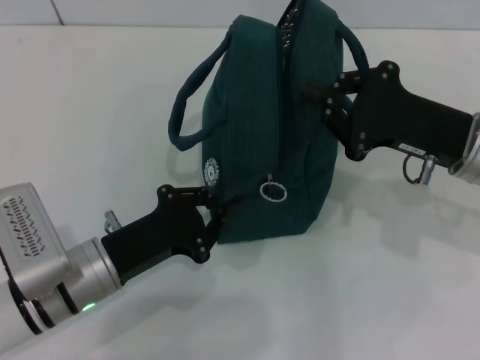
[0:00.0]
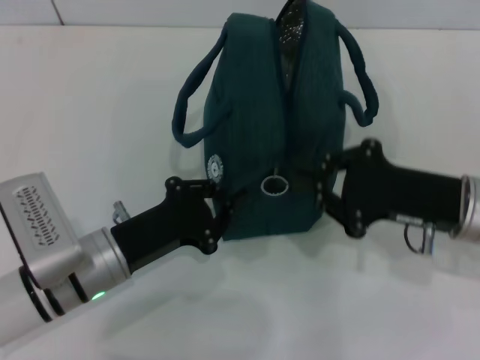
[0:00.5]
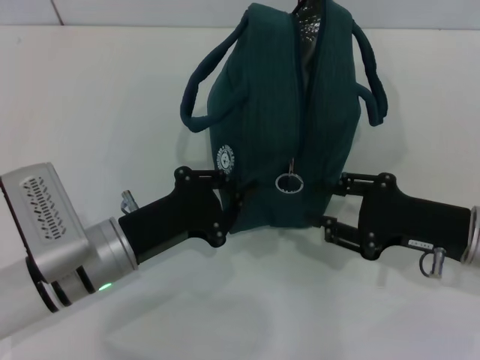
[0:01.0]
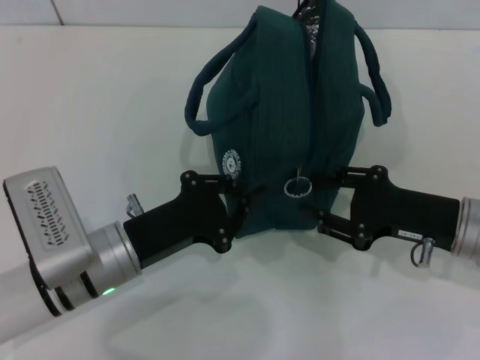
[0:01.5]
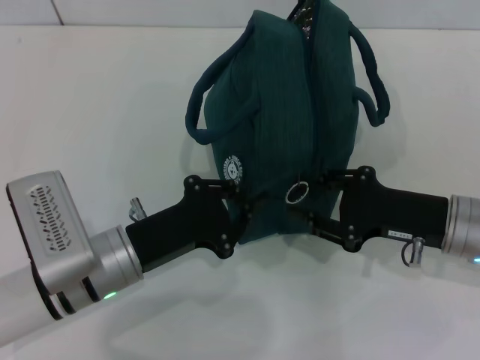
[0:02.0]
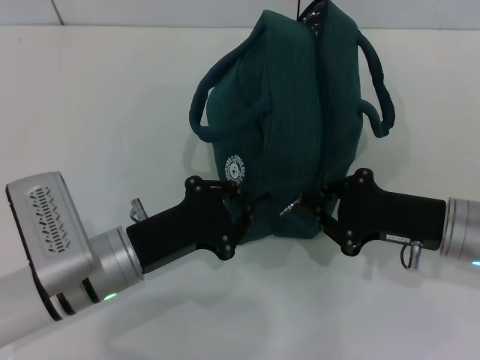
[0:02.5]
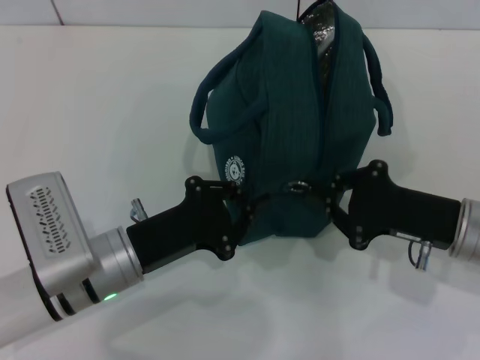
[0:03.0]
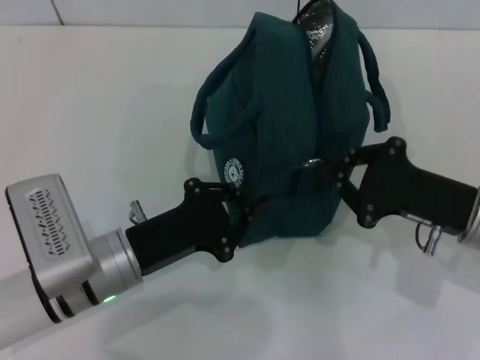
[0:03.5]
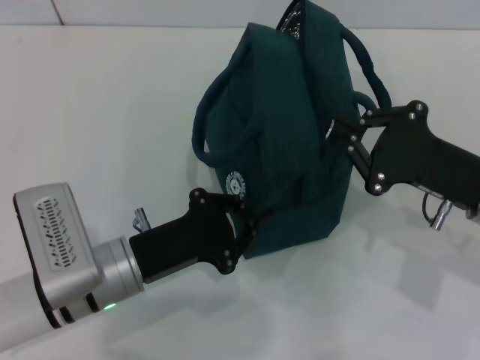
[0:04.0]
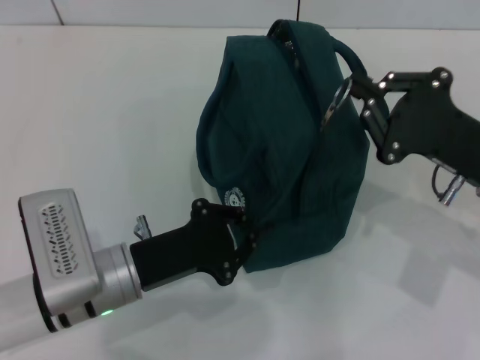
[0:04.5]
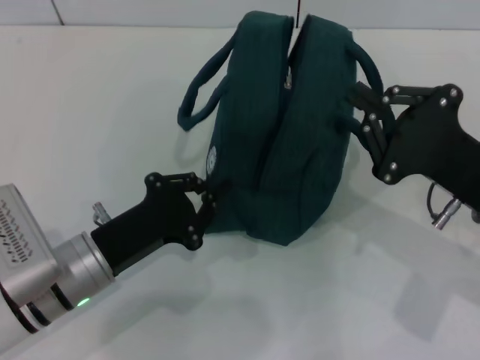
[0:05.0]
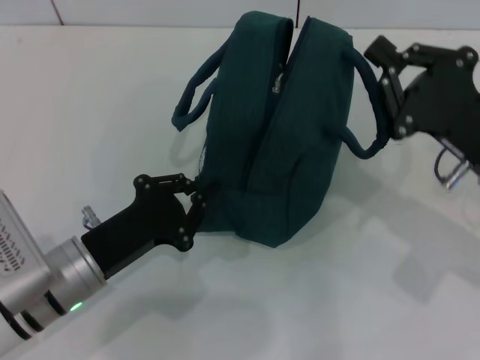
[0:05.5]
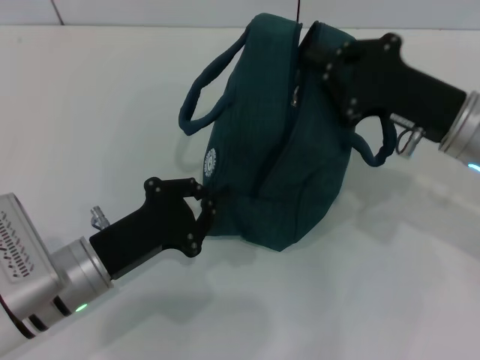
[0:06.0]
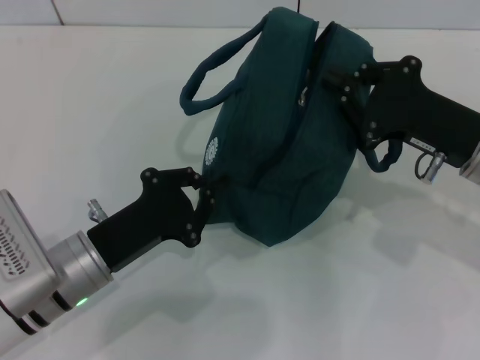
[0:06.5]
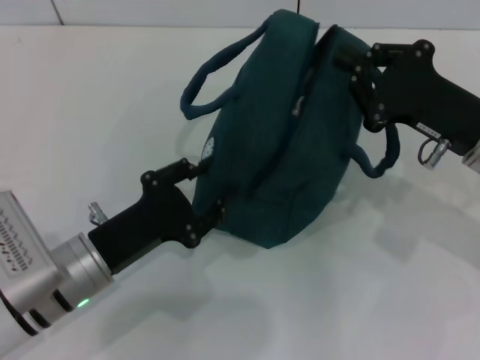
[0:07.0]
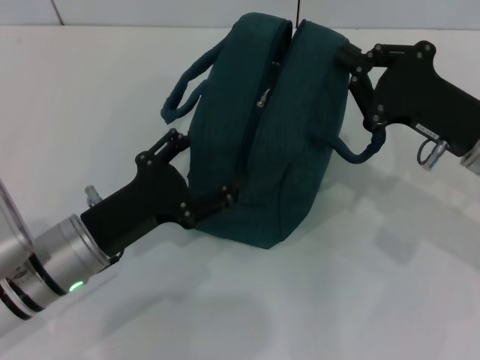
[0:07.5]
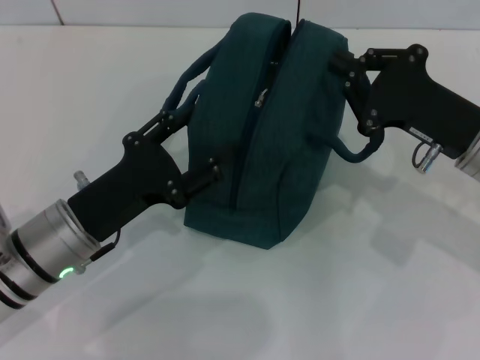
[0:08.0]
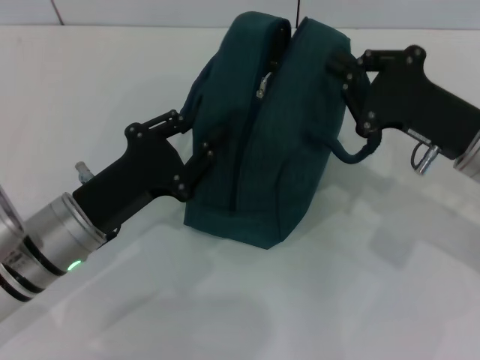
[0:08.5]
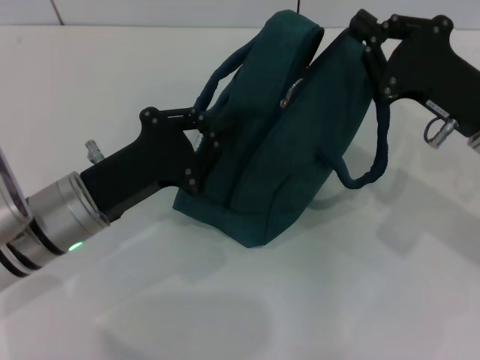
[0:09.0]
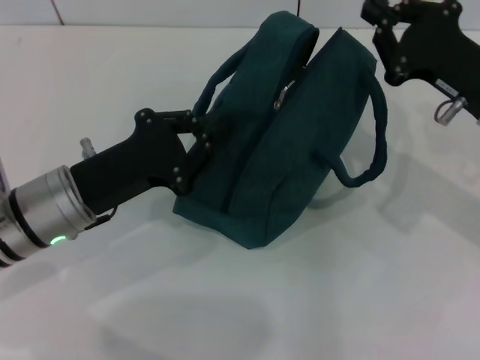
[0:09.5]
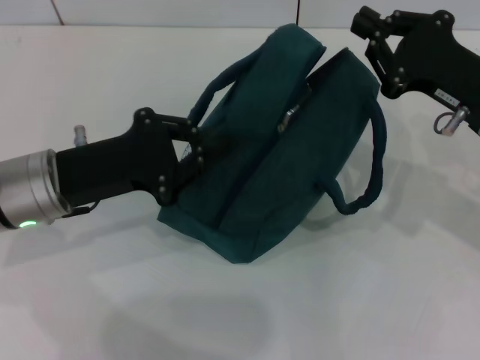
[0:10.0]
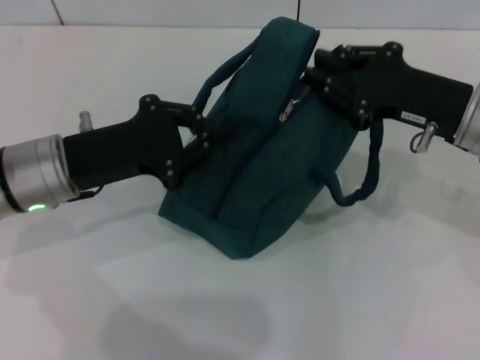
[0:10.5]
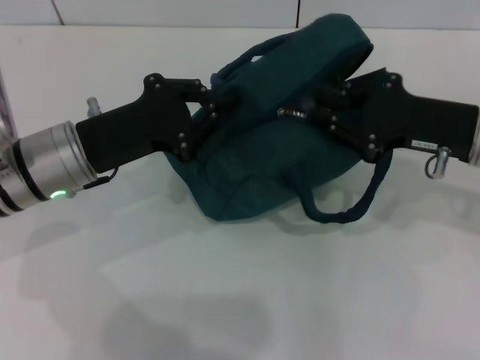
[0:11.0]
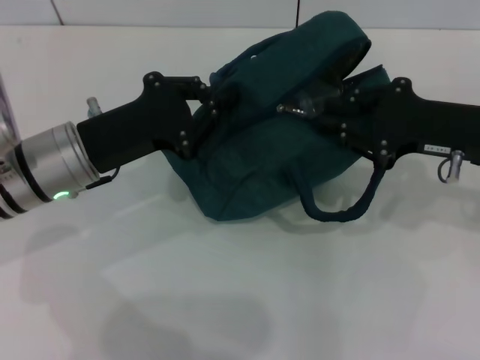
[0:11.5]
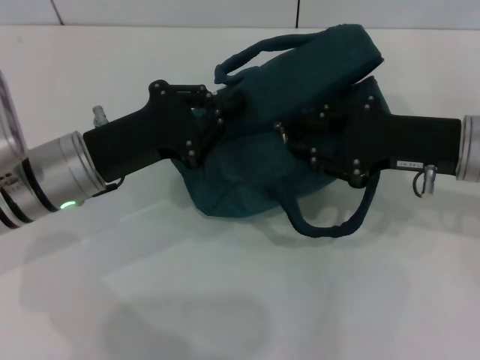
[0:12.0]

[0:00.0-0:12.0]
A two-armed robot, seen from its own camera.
0:00.0 to 0:02.0: The right gripper shifts roughly 5 cm downward, and opens its fingers.
0:02.0 to 0:04.0: The right gripper closes its fingers.
0:04.0 to 0:06.0: The right gripper moves some 5 cm.
0:06.0 to 0:08.0: The left gripper opens its fingers.
0:08.0 to 0:10.0: The left gripper ends up roughly 5 cm from where it was, and closes.

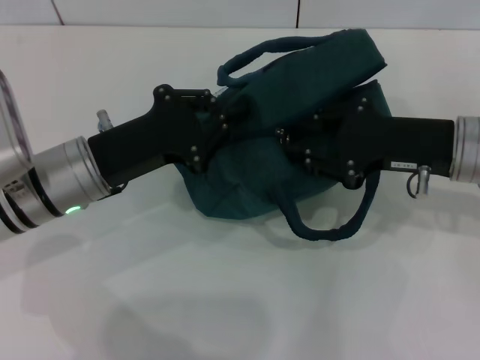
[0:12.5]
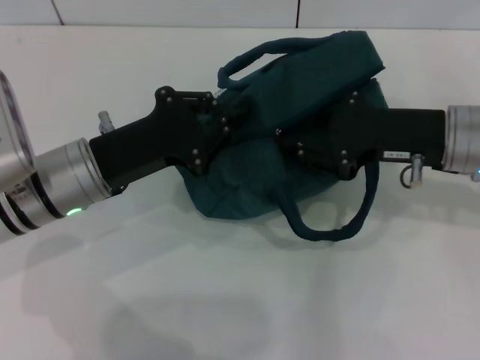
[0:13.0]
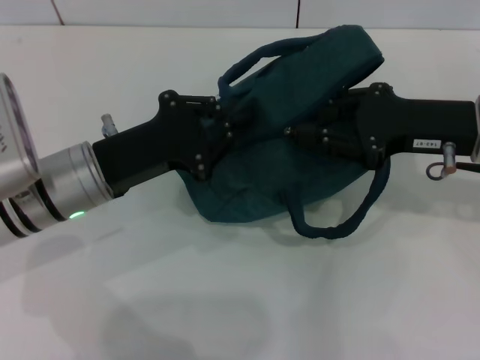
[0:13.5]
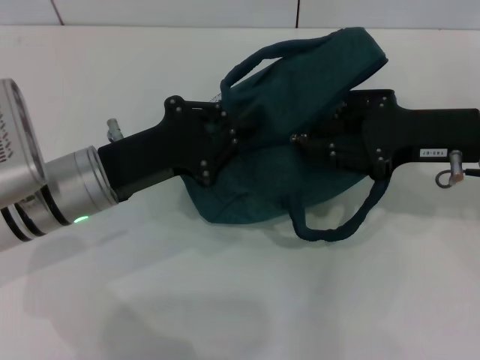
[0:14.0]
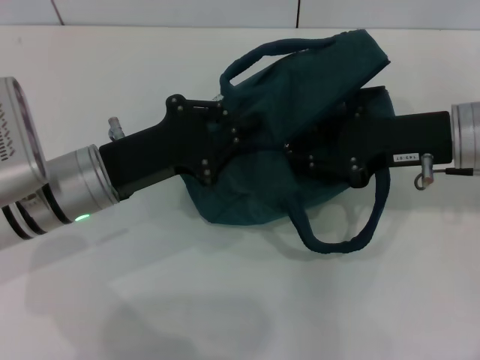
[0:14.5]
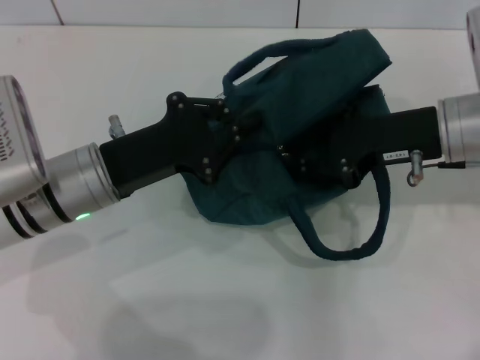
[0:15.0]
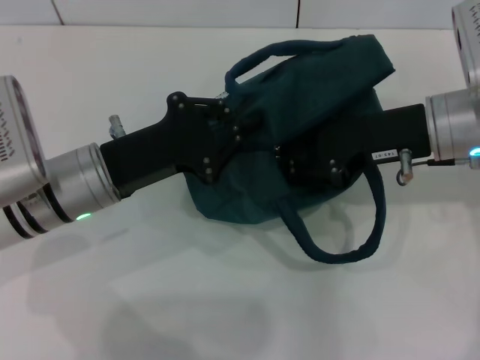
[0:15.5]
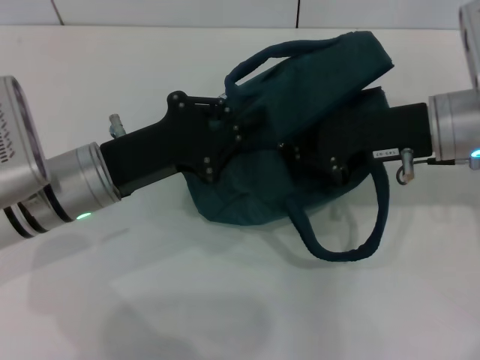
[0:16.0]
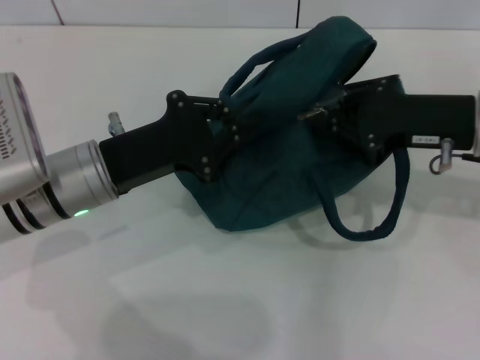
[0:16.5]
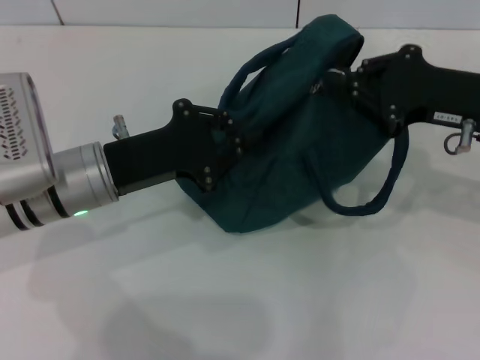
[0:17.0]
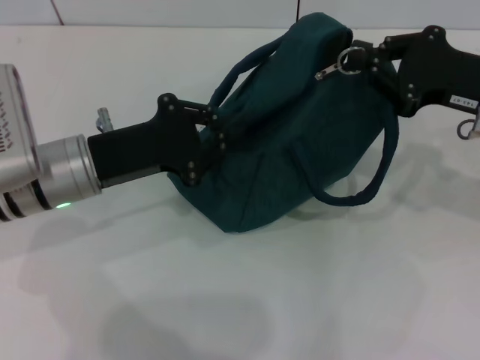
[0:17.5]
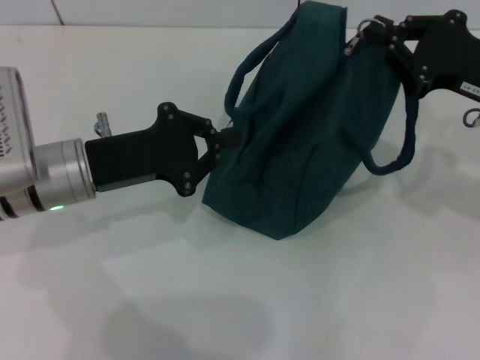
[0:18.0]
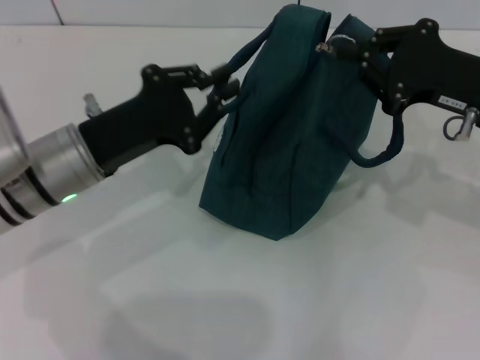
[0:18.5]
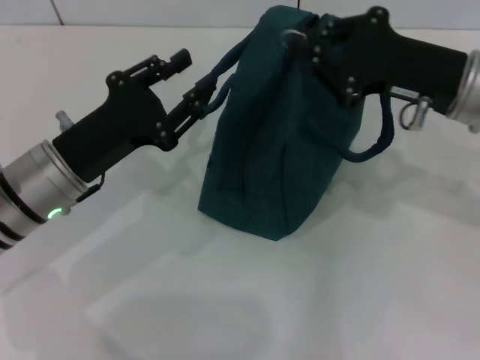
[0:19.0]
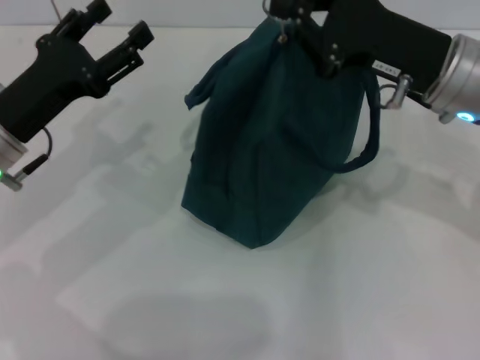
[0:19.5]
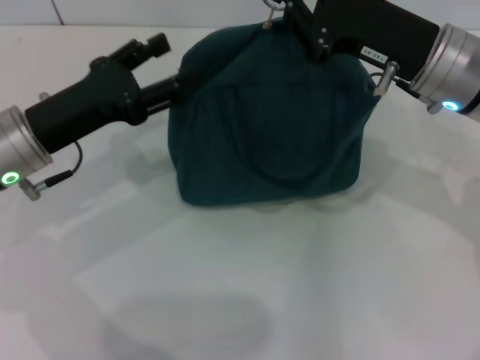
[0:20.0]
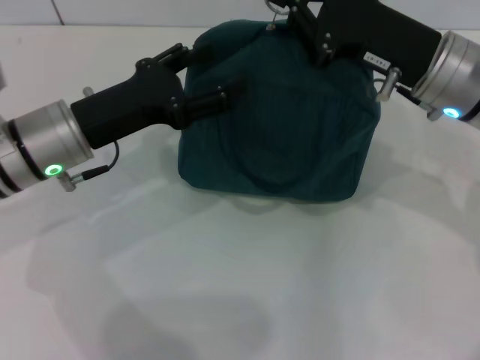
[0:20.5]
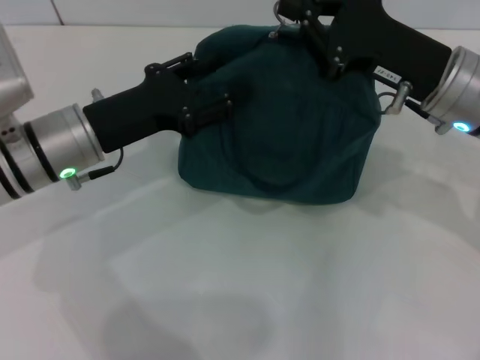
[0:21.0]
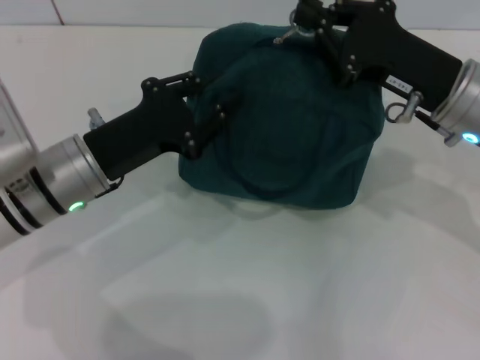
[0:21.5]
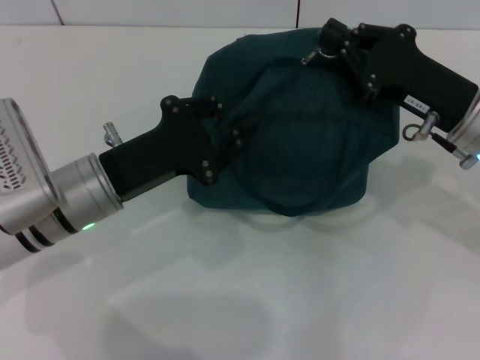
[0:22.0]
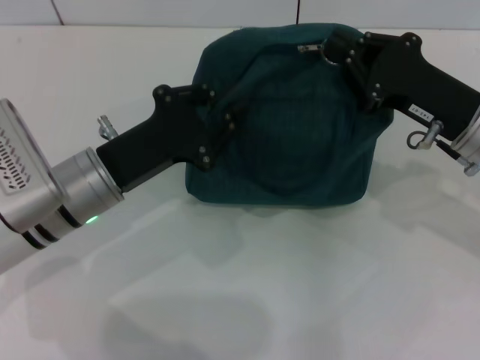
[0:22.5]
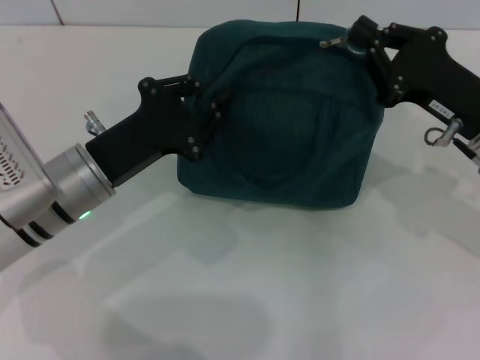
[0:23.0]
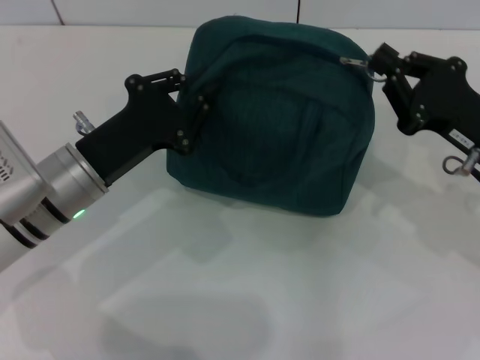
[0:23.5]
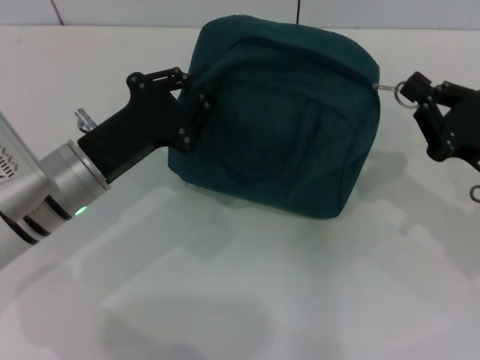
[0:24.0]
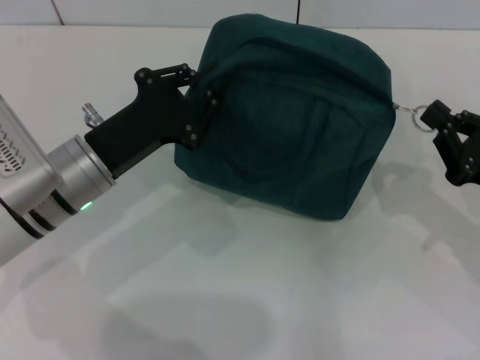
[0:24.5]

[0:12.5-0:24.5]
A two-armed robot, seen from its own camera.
0:12.5 to 0:14.5: There are only small adjustments of the grippers.
0:14.5 to 0:16.5: The right gripper closes up.
0:18.5 to 0:20.5: The right gripper heads to the left, covering roughly 5 cm; the left gripper opens its fingers.
0:20.5 to 0:22.5: The right gripper changes place by some 5 cm. Meanwhile the left gripper moves about 5 cm, and closes its fingers.
0:22.5 to 0:24.5: The right gripper moves to the right, backward and downward, approximately 10 cm.

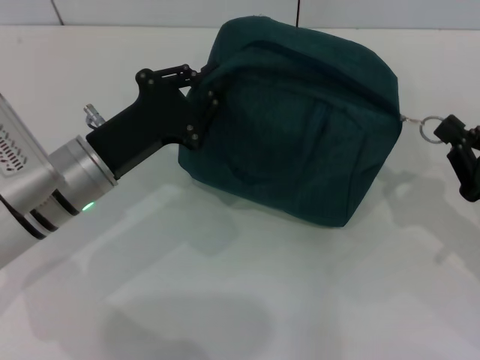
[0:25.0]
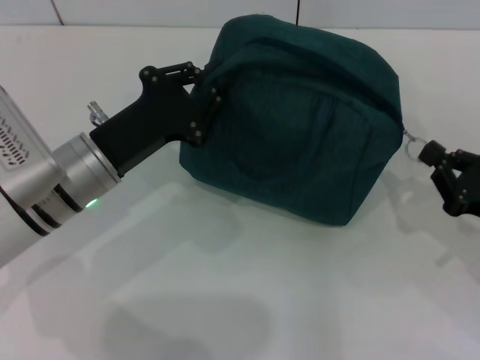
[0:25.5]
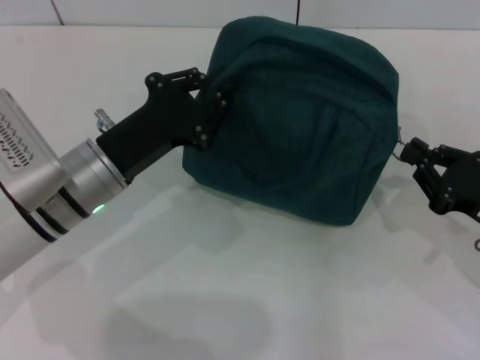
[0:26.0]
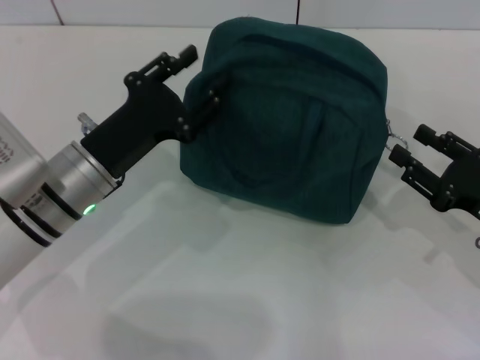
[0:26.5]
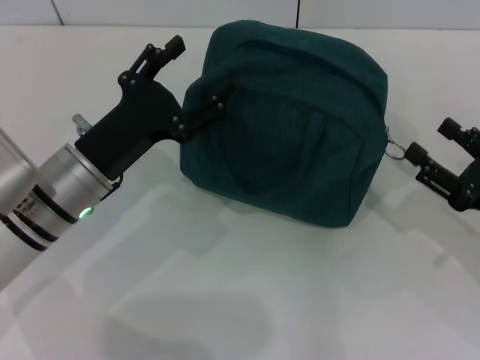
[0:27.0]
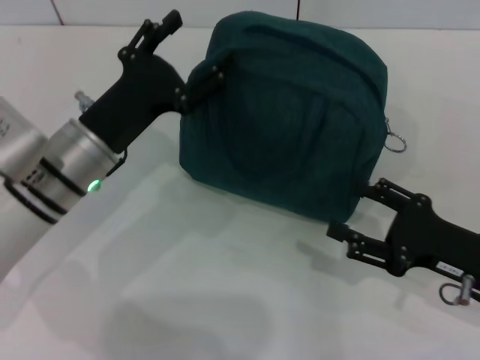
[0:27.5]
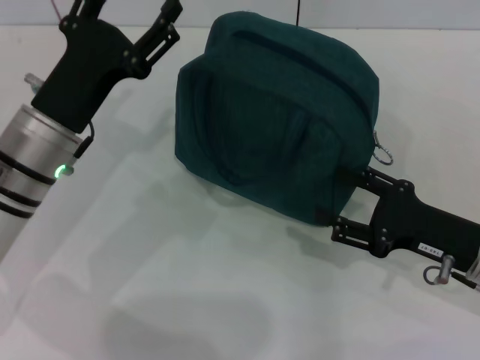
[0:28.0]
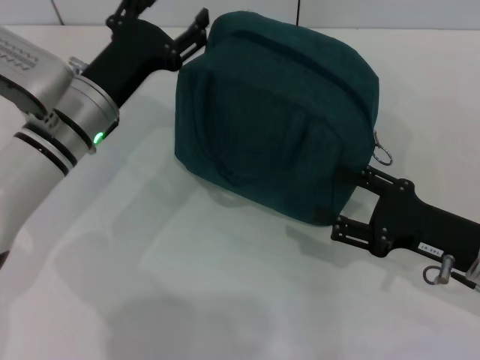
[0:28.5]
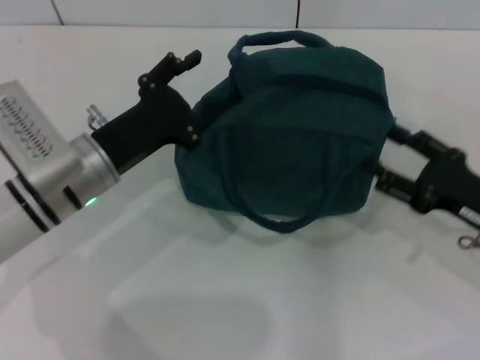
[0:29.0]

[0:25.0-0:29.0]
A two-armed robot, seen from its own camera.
0:25.0 to 0:27.0: The left gripper opens up; the right gripper opens up.
